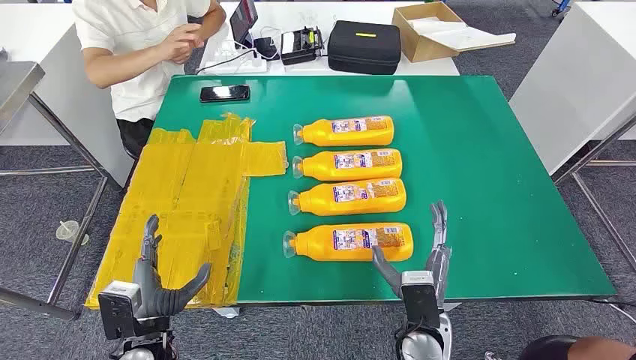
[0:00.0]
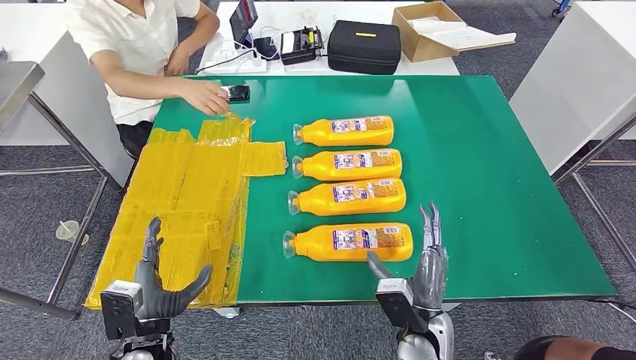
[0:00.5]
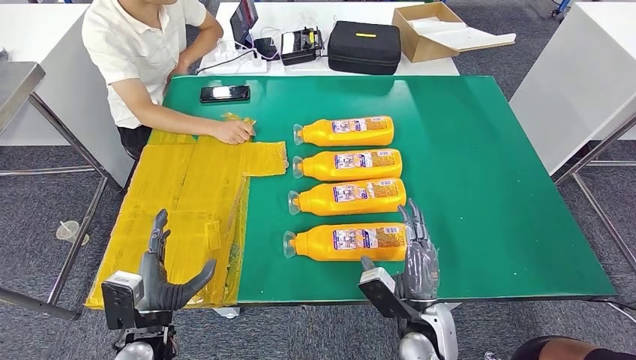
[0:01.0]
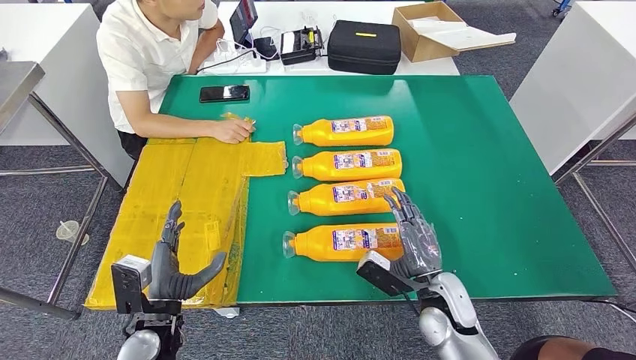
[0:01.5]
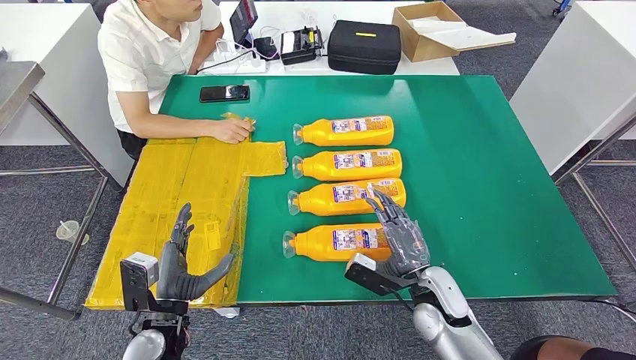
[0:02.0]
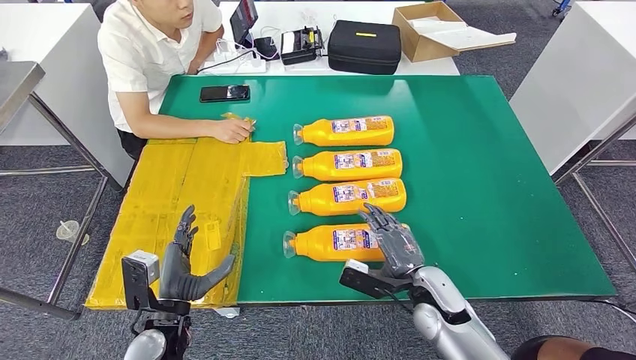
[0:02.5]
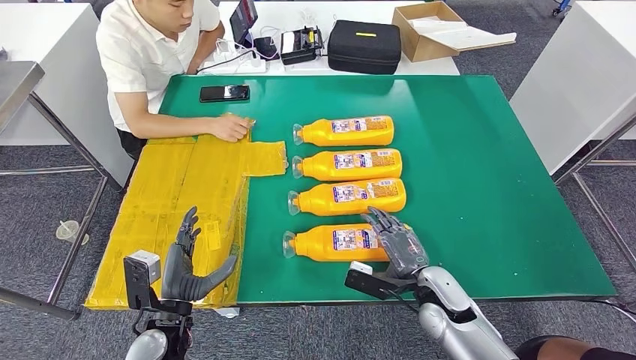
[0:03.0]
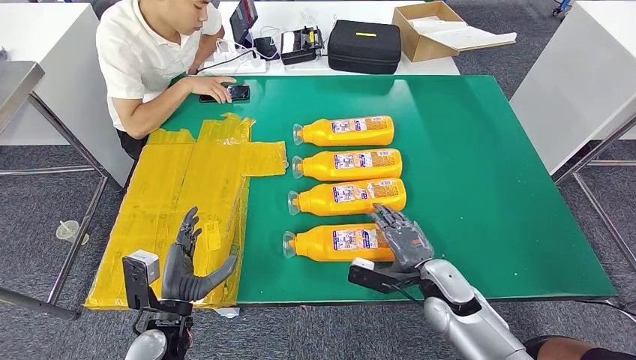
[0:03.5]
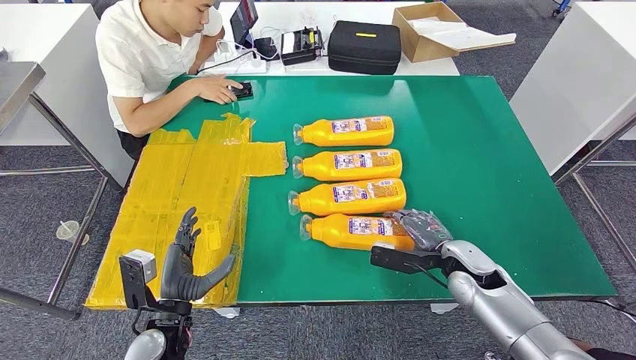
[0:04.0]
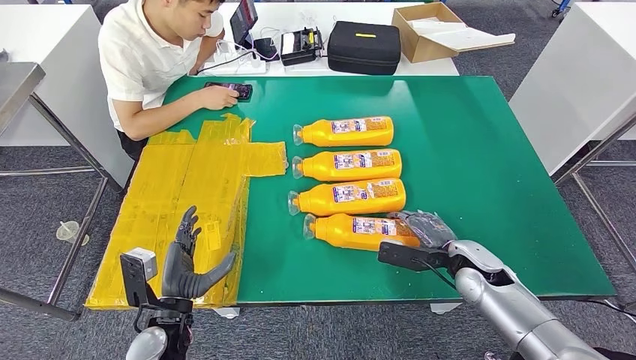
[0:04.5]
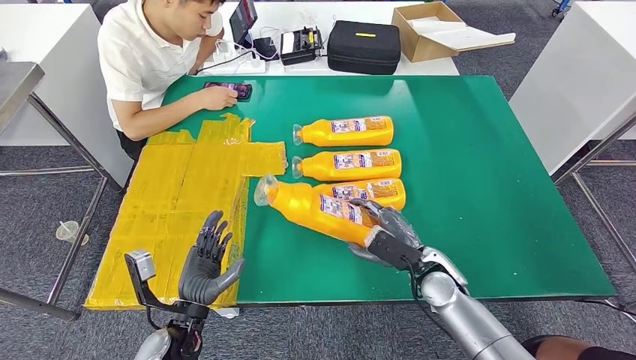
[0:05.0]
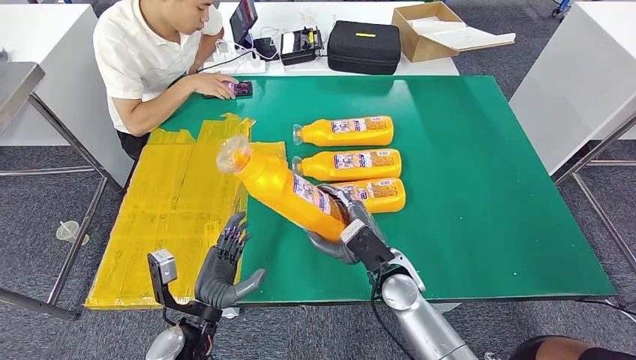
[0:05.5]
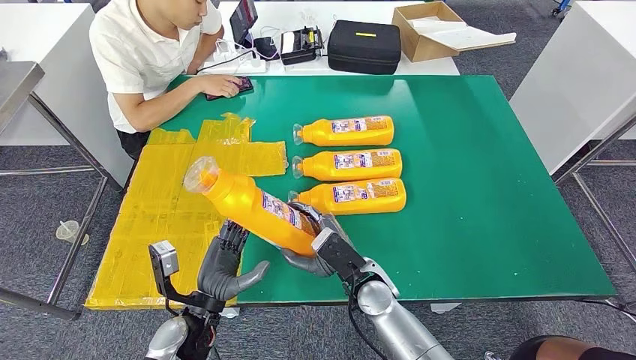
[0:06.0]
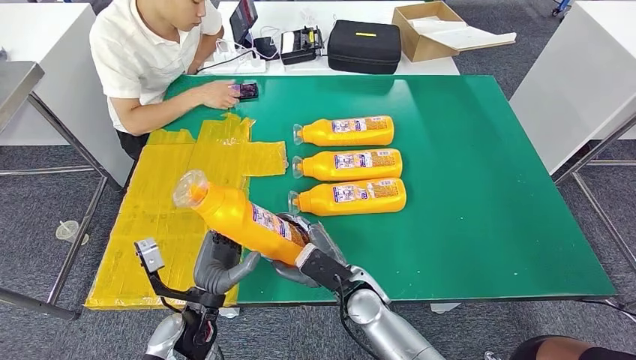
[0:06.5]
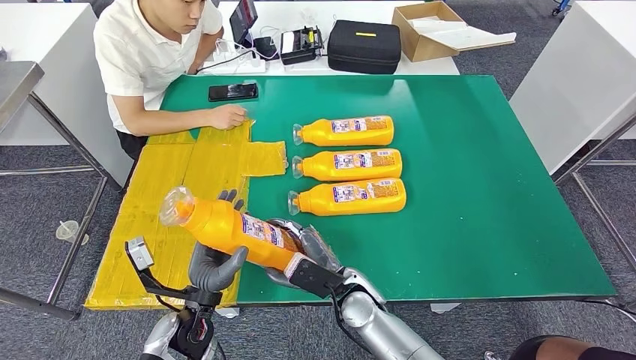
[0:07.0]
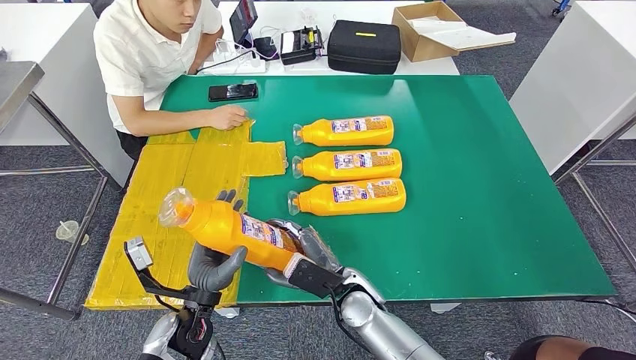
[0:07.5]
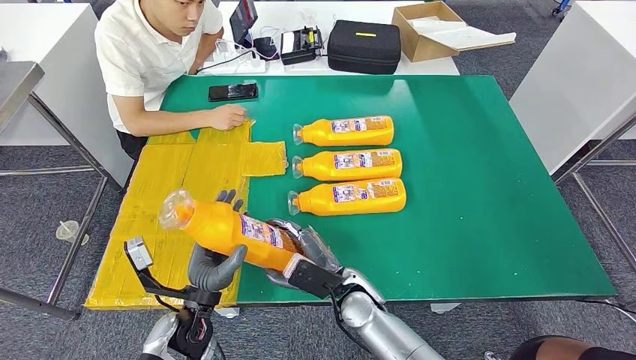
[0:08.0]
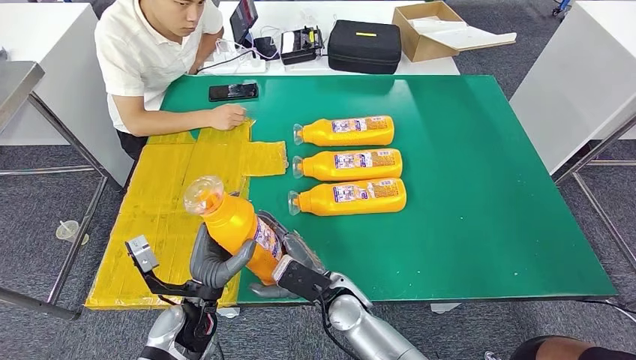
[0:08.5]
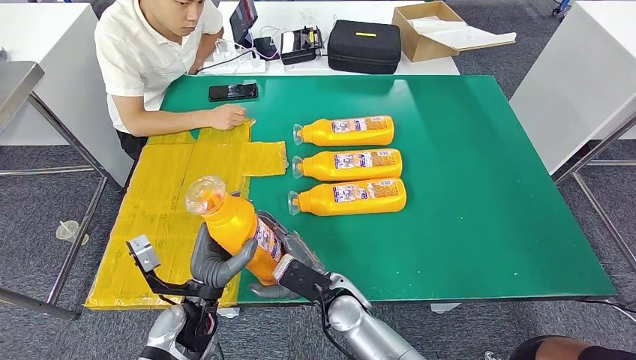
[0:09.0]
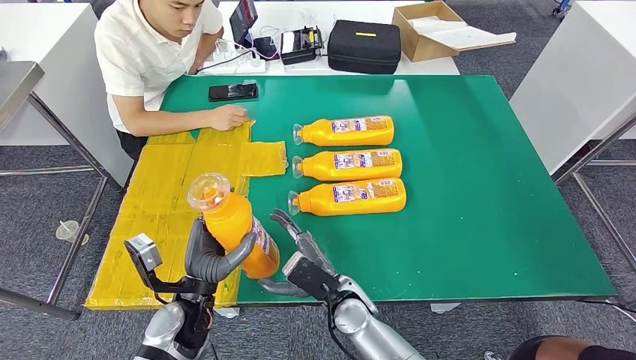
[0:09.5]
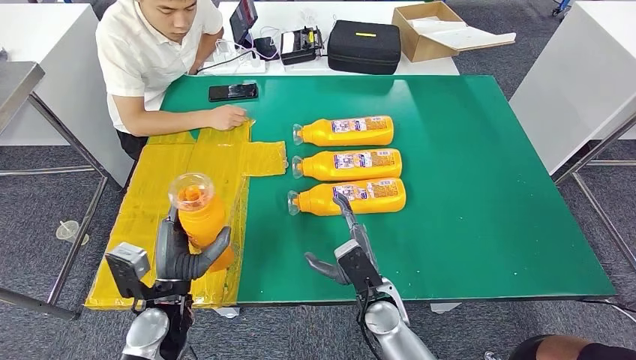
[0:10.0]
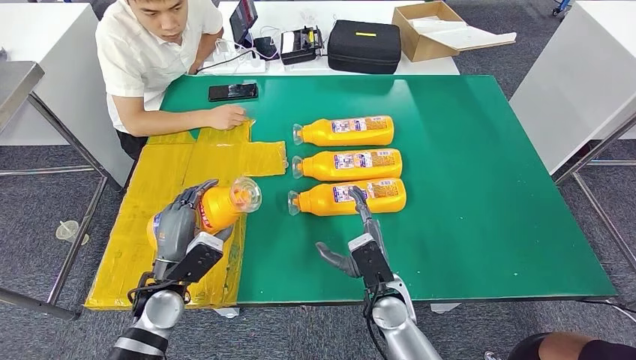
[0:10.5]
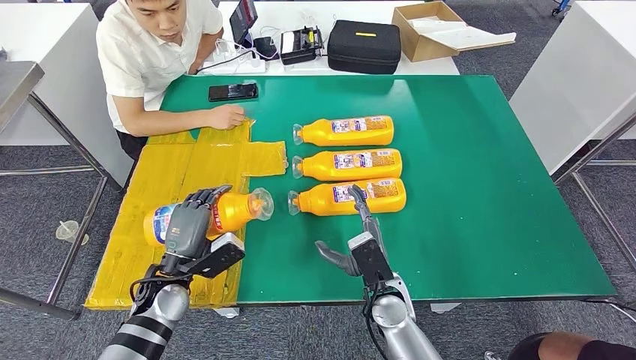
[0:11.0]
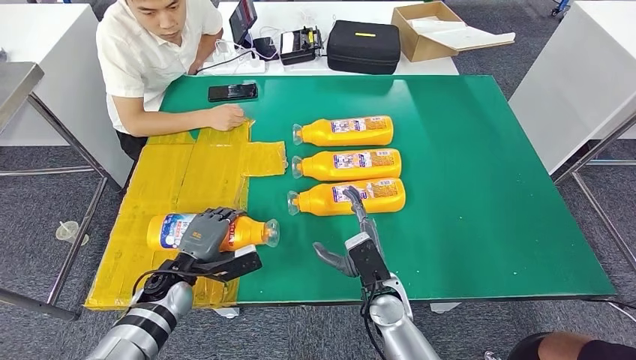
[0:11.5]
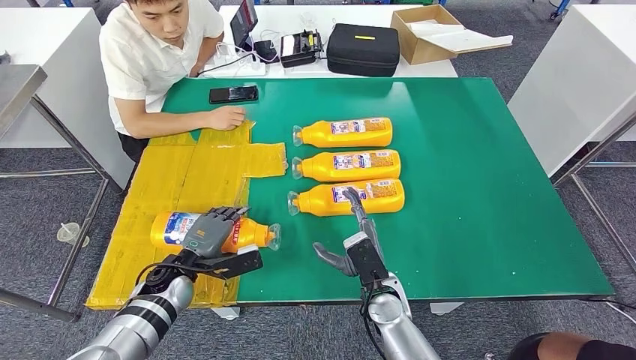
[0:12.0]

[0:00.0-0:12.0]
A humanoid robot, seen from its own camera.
Step, 0:00.0 to 0:06.0: Take the fast-moving consumer goods bottle from the table.
0:02.0 to 0:04.0: The right hand shifts roughly 10 cm to the right.
0:04.0 to 0:06.0: The right hand moves to the left, approximately 20 cm.
0:06.0 to 0:08.0: There are only small adjustments of the hands.
0:10.0 to 0:12.0: The left hand heads forward and downward, covering roughly 10 cm.

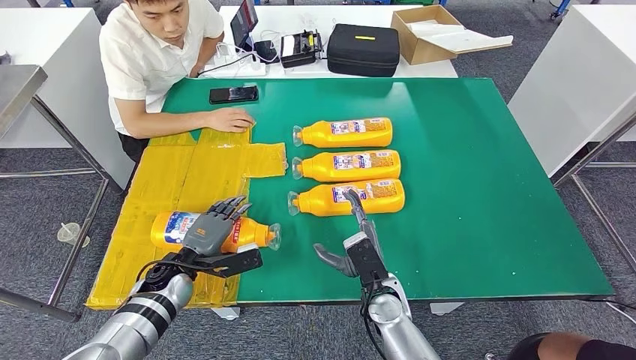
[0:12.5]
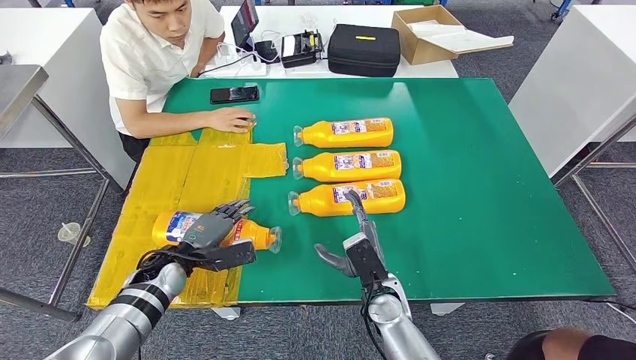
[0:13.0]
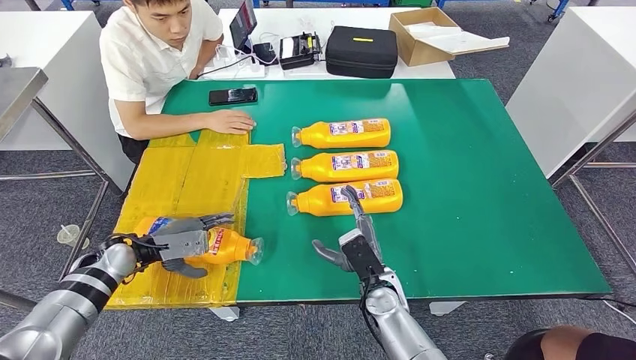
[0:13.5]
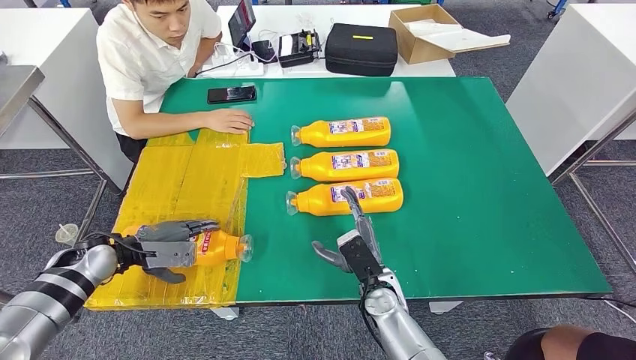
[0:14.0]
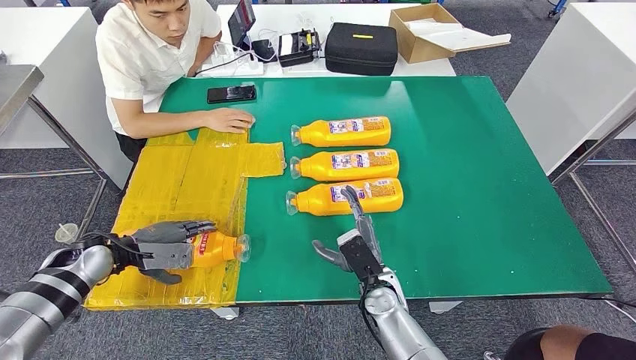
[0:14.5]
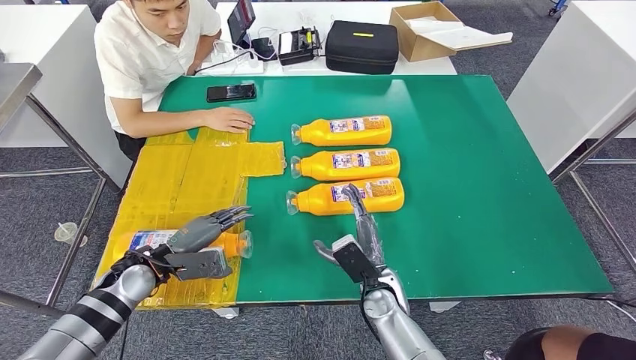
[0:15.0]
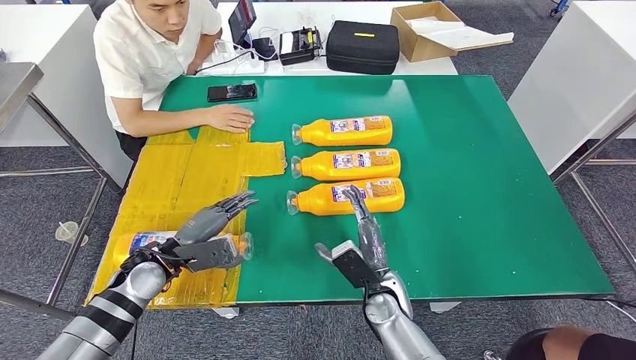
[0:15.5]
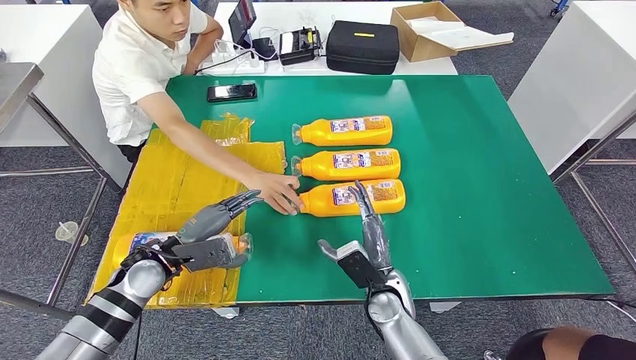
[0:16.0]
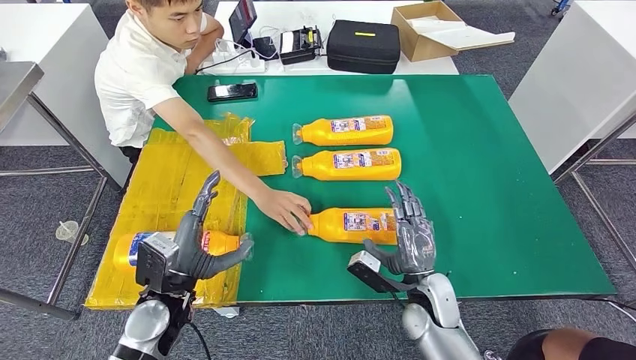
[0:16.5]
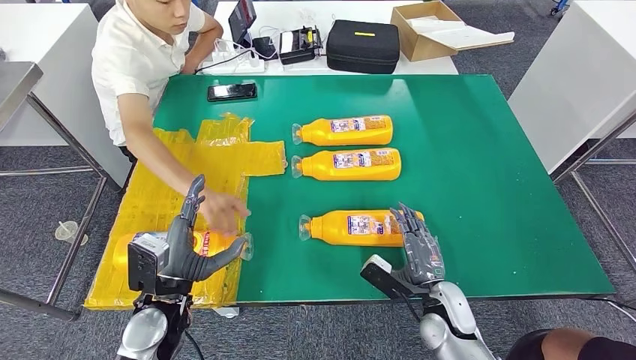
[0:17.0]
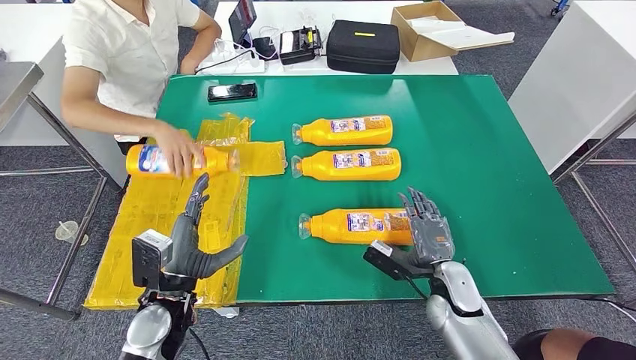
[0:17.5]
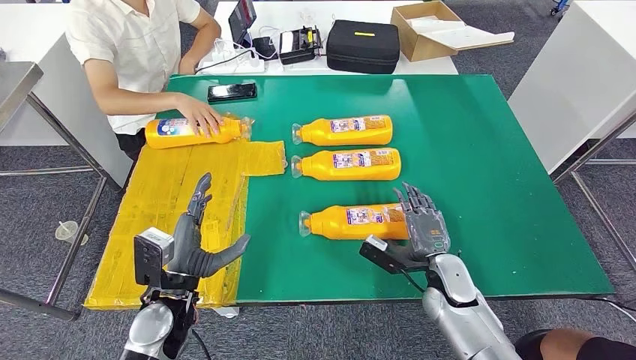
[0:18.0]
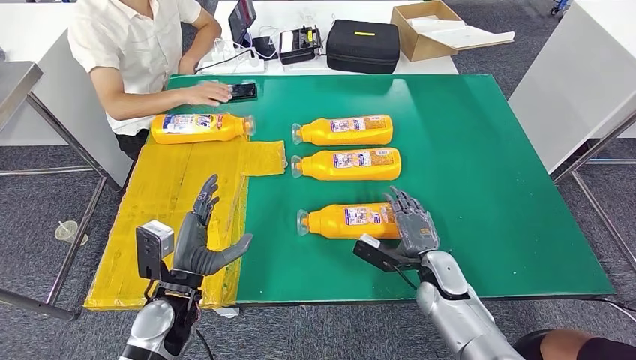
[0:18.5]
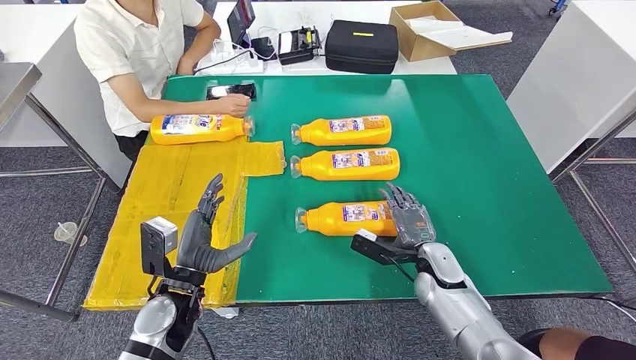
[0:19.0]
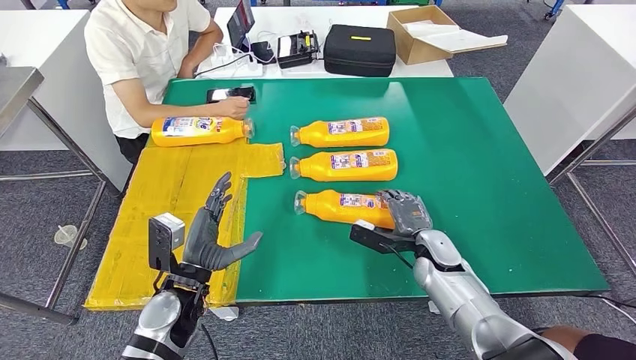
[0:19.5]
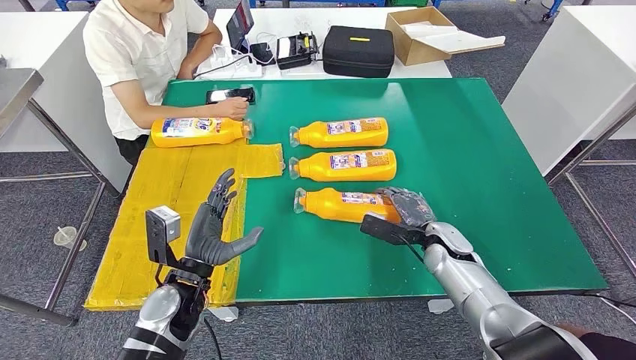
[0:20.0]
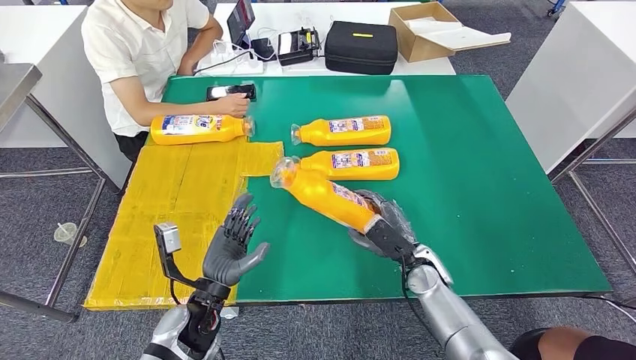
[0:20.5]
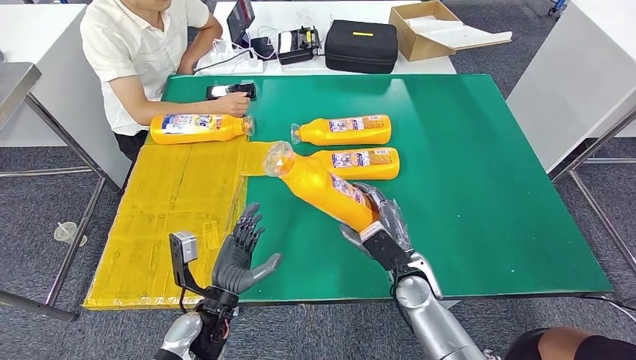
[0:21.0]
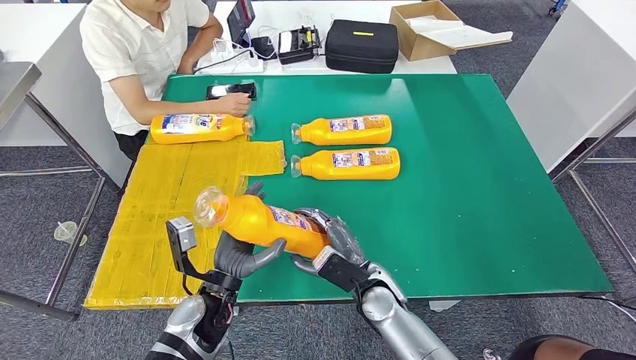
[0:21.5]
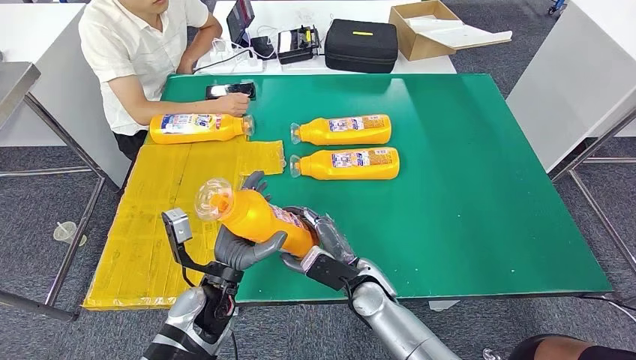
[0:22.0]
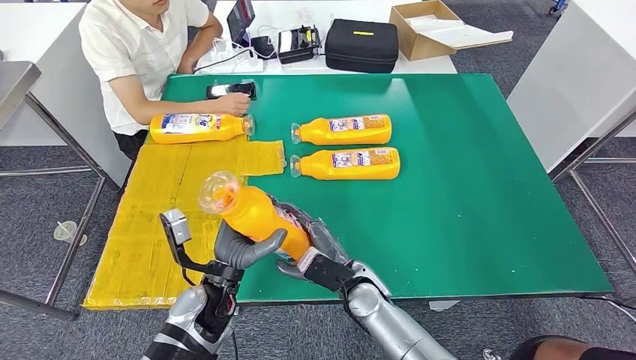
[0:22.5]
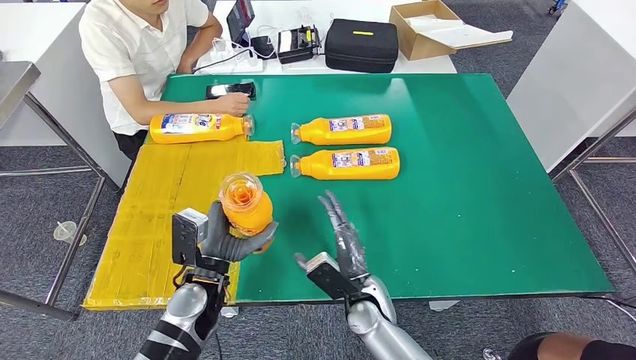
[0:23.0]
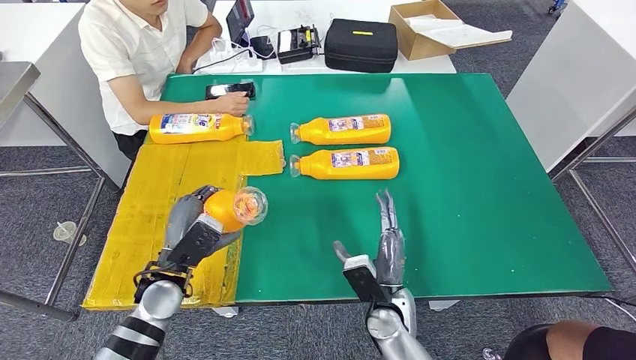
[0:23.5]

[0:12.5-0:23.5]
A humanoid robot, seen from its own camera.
Step, 0:12.5 to 0:21.0: Pick up the fast-moving consumer goods bottle from the table.
0:12.5 to 0:14.5: The left hand goes some 15 cm to the left and upward.
0:21.5 to 0:23.5: The left hand travels to the left by about 10 cm.
